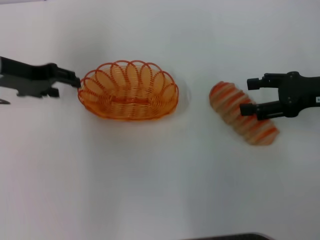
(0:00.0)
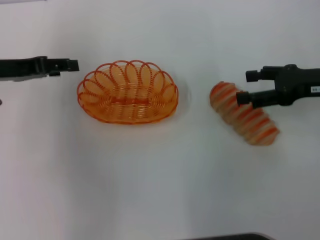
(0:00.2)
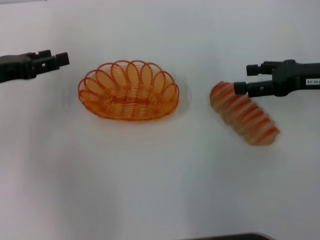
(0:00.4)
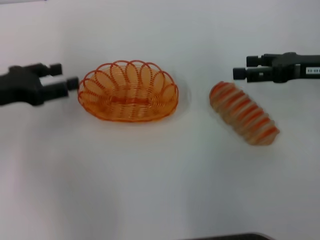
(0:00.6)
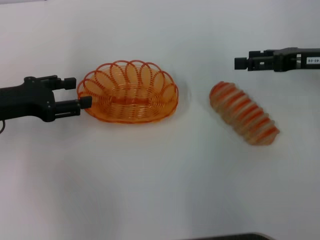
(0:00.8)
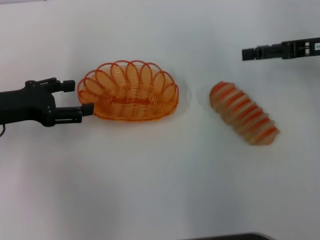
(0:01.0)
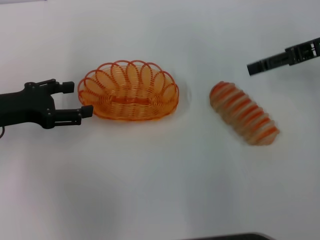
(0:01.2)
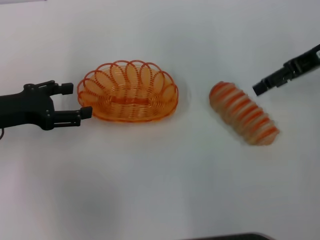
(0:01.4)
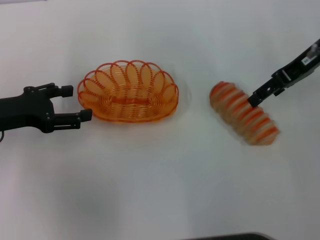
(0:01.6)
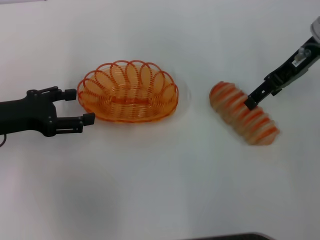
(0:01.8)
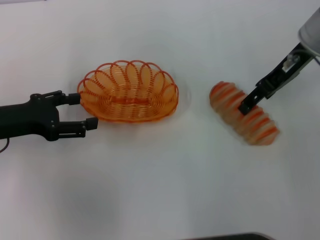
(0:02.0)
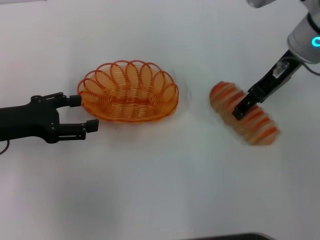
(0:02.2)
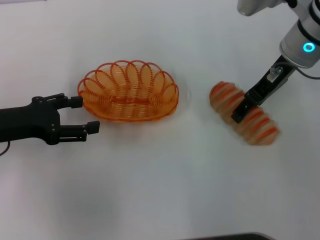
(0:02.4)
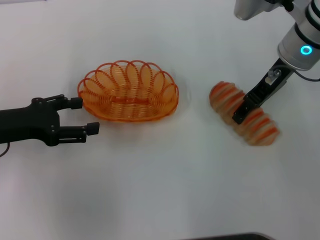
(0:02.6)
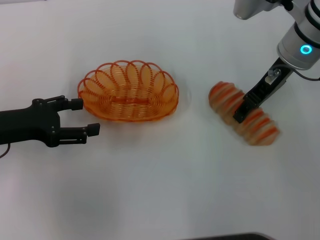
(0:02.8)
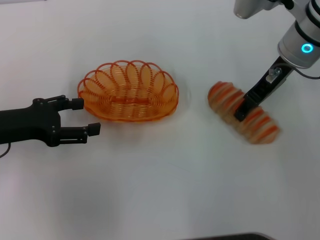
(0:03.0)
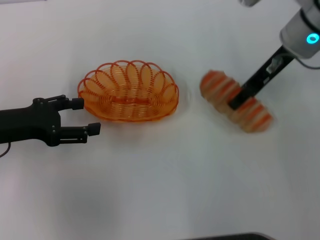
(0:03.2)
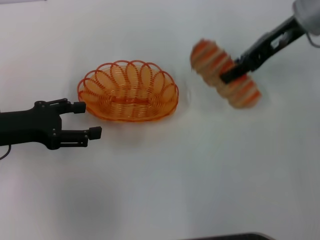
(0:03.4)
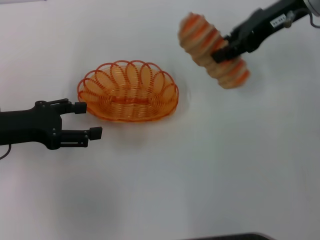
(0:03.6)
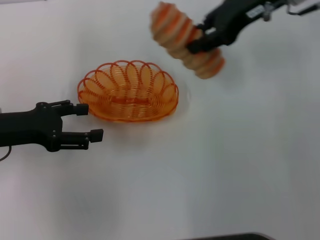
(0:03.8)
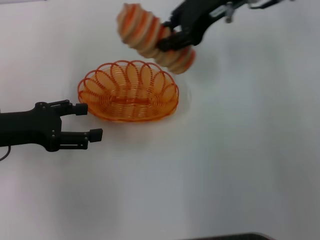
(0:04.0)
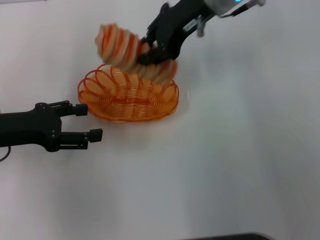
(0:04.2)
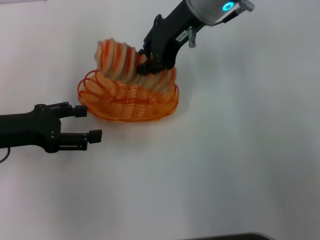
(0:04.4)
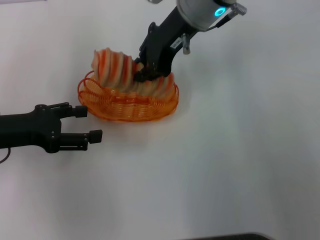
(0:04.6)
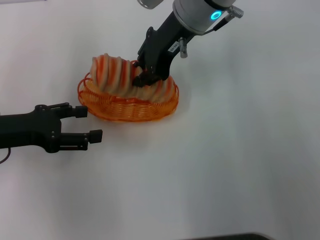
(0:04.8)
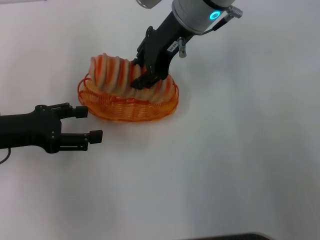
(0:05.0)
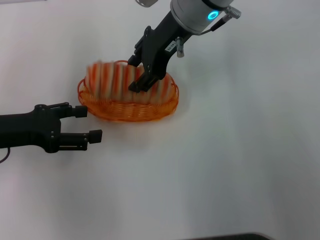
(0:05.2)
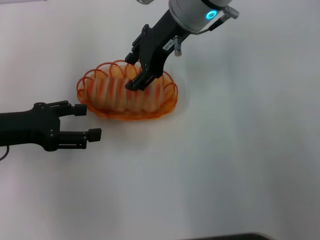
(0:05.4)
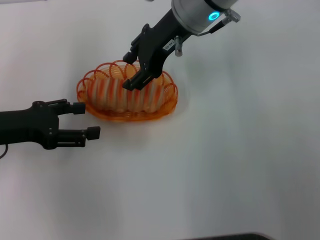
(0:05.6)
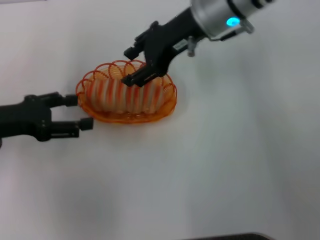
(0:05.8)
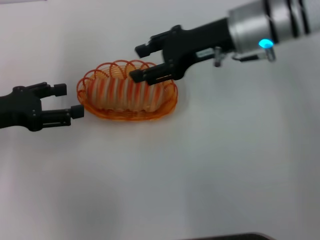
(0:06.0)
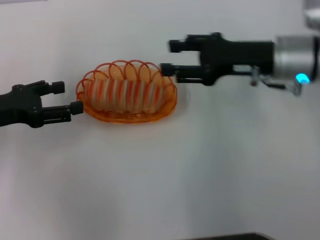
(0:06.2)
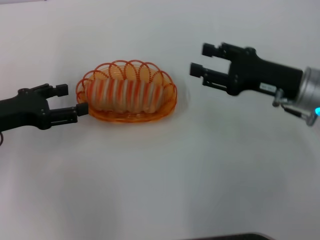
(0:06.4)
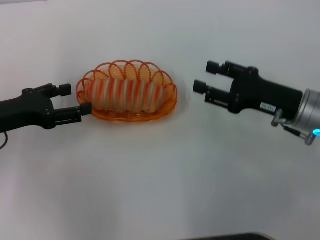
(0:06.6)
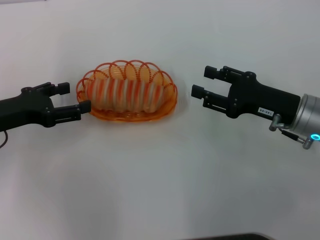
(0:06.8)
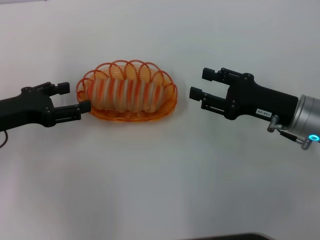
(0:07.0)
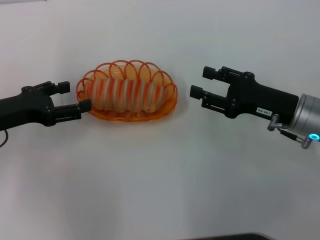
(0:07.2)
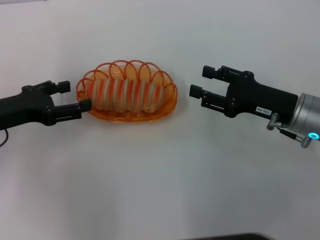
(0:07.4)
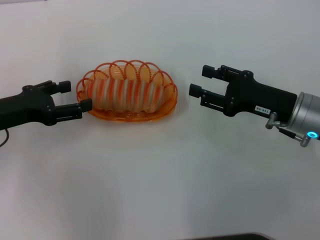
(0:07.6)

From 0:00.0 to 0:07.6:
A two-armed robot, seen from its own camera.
Step, from 0:00.2 to 0:03.0: Pick up the long bread with the right gripper.
Step, from 0:03.2 to 0:05.6: Place the long bread into the basket with the right gripper.
From 0:00.0 to 0:01.6: The left gripper heads backward, covering roughly 5 cm, and opens. The right gripper heads forward, upward and to the left, covering roughly 10 cm.
From 0:01.6 to 0:03.0: The right gripper moves to the left, about 5 cm, and closes its fingers.
From 0:03.0 to 0:04.6: The right gripper moves to the left, some 10 cm, and closes up.
From 0:04.6 to 0:06.0: The right gripper shifts roughly 5 cm to the right, and opens up.
From 0:06.0 to 0:07.6: The right gripper goes about 20 cm downward, backward and to the right.
